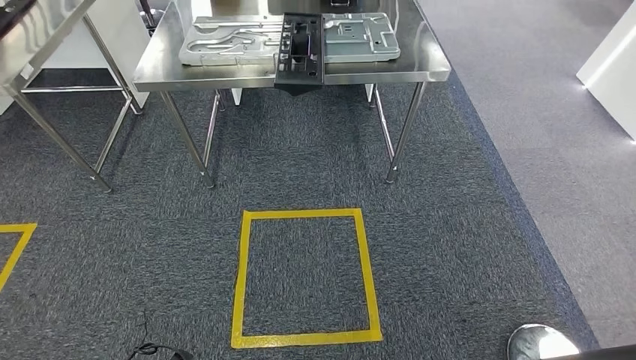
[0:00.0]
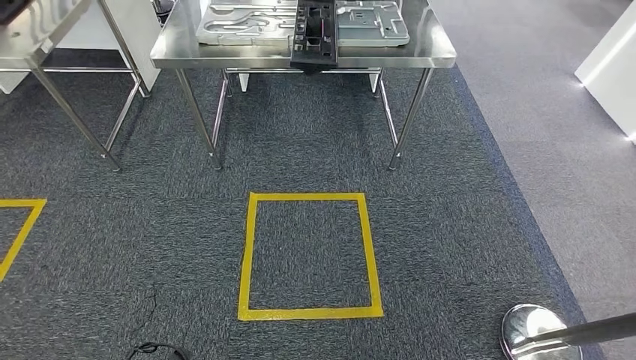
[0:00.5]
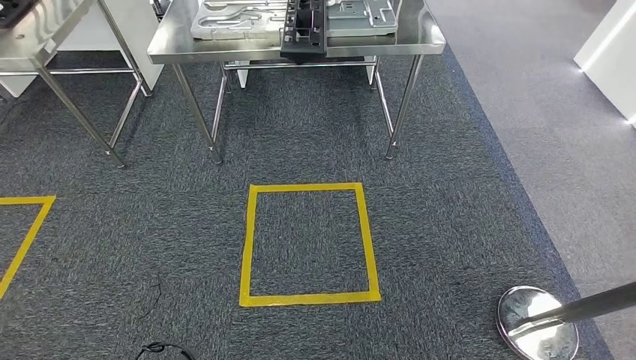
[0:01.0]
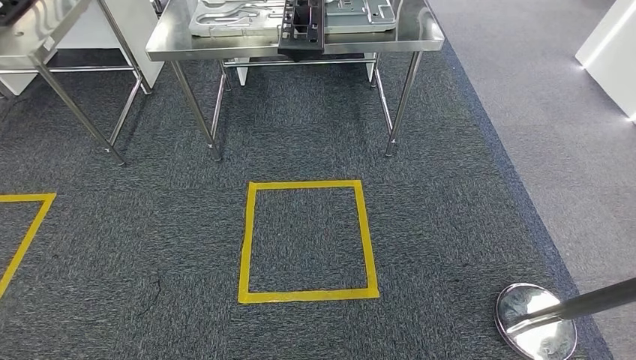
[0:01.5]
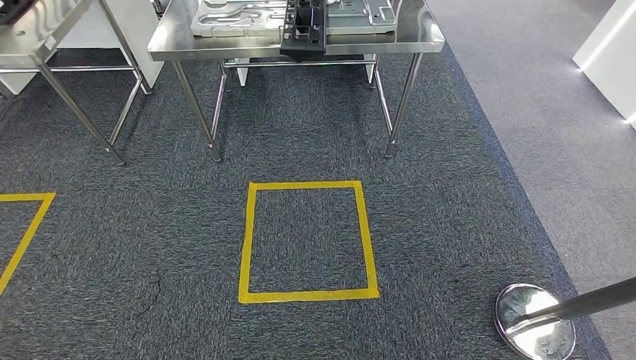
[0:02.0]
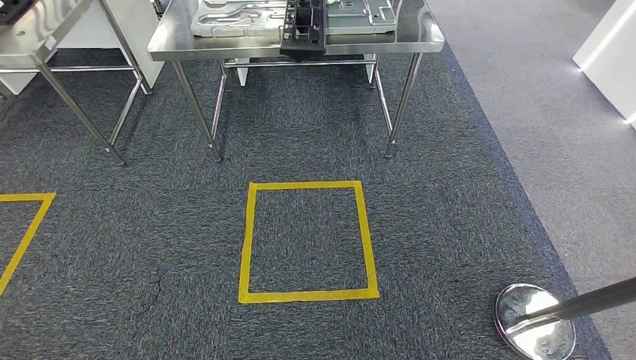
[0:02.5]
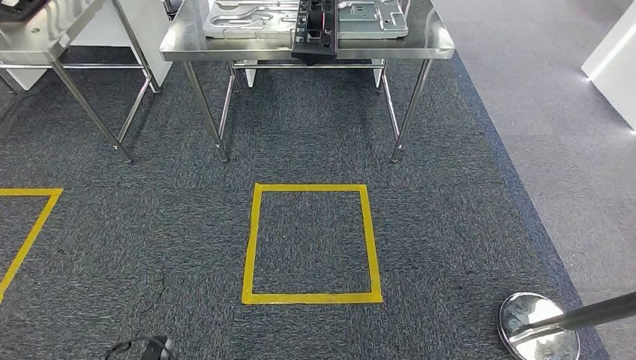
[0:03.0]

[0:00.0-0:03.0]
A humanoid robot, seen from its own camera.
Step, 0:00.0 to 0:03.0: Return to the initial position at the shelf.
0:01.5 to 0:03.0: The left hand reaches roughly 10 cm backward, then returns; the right hand goes roughly 15 cm backward.

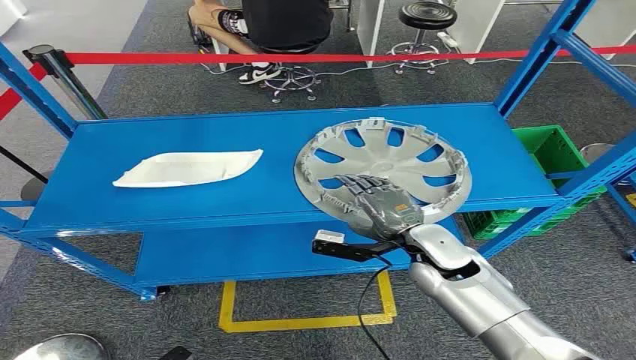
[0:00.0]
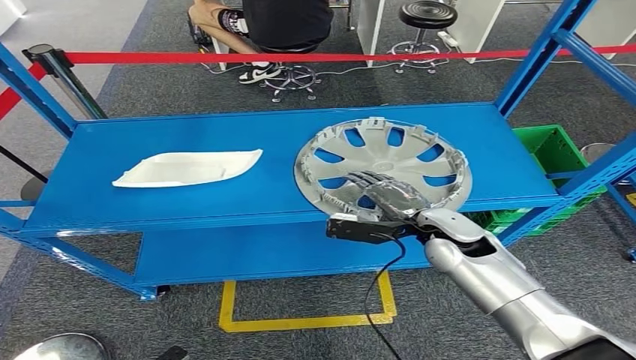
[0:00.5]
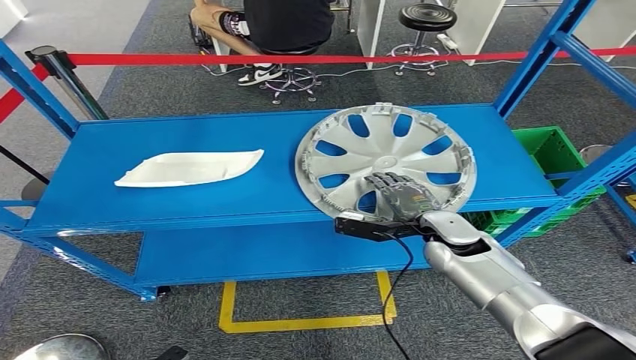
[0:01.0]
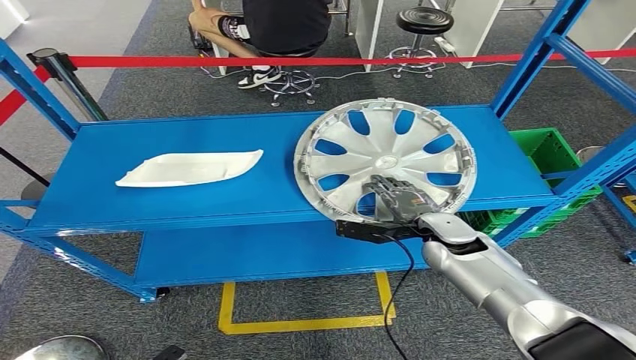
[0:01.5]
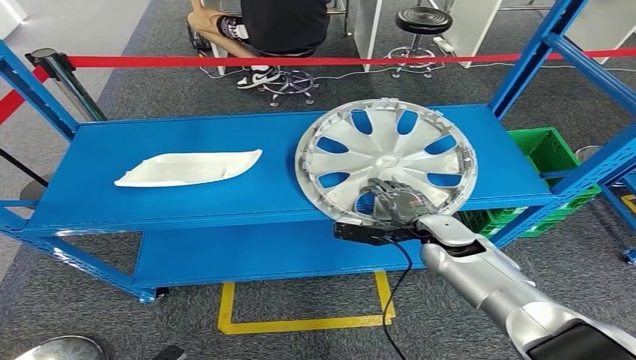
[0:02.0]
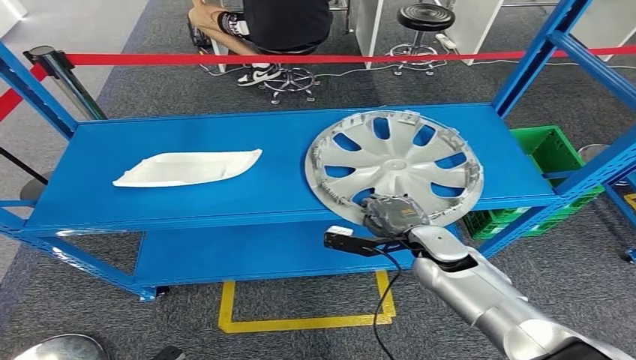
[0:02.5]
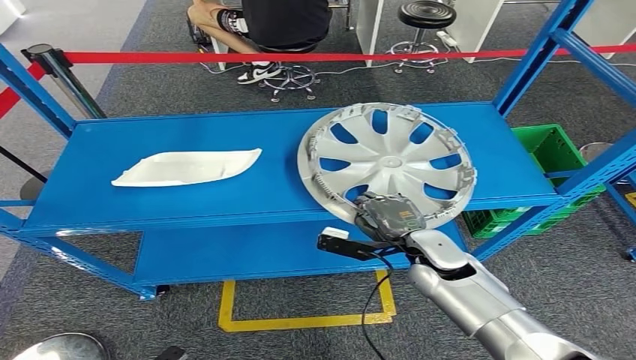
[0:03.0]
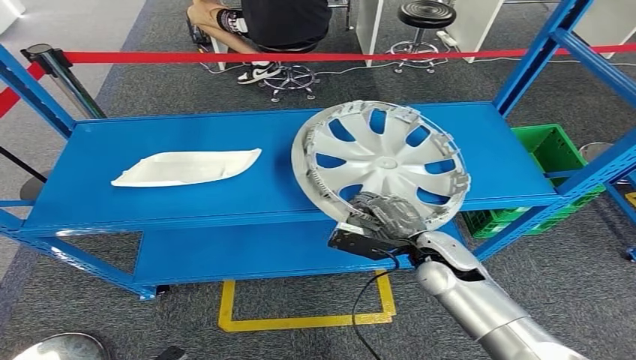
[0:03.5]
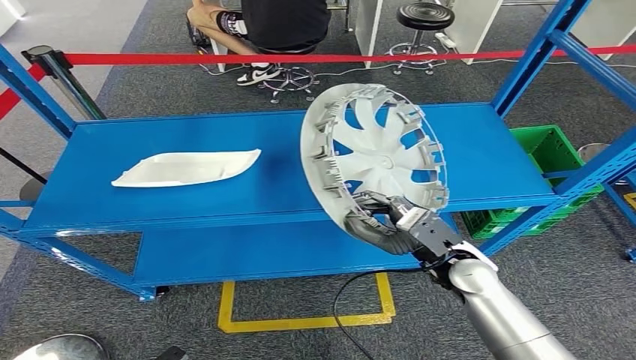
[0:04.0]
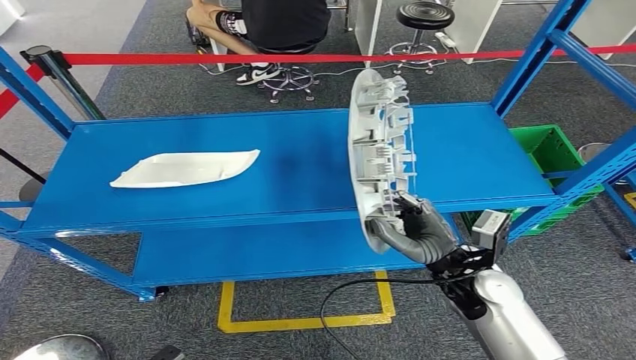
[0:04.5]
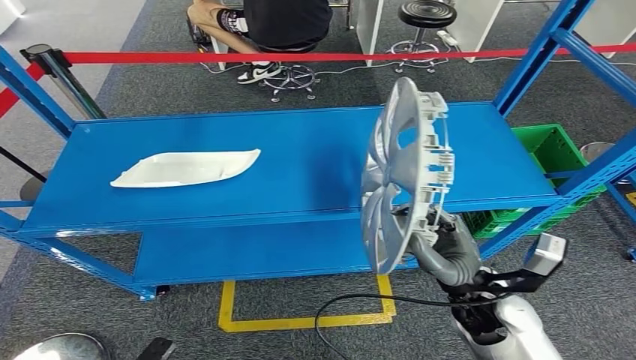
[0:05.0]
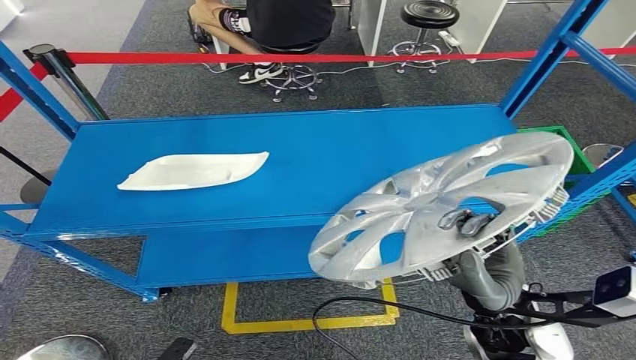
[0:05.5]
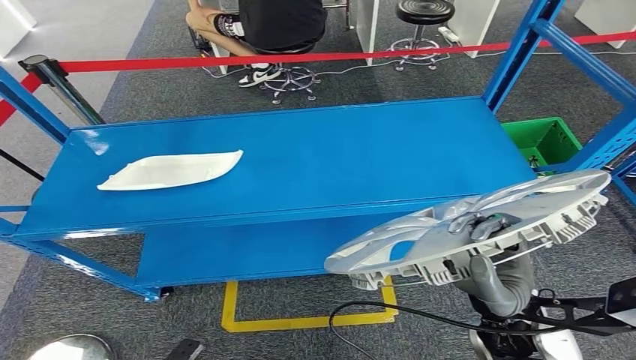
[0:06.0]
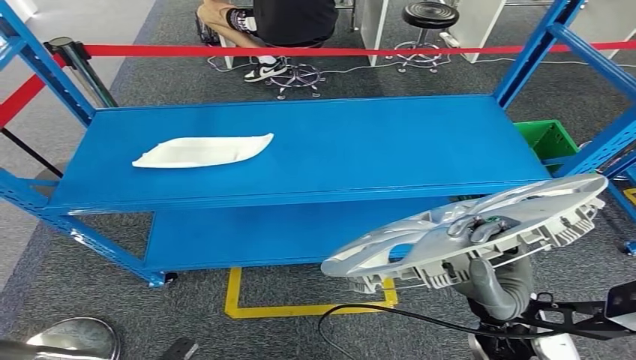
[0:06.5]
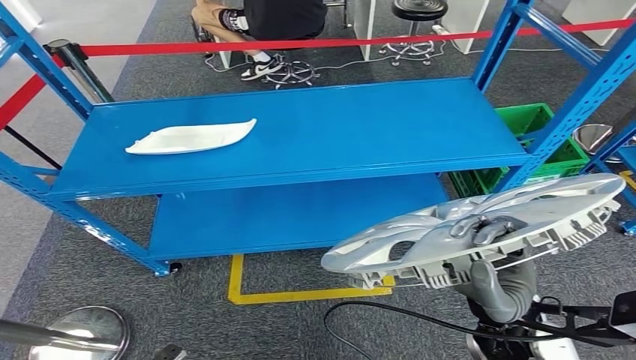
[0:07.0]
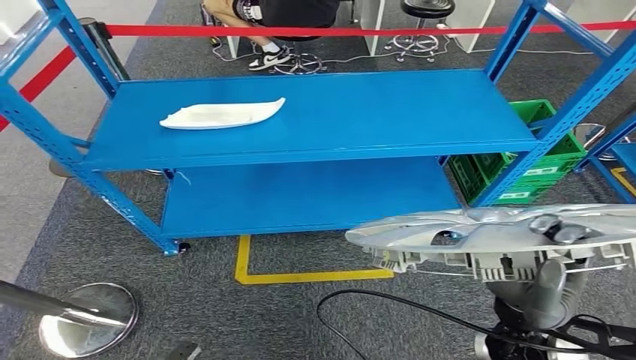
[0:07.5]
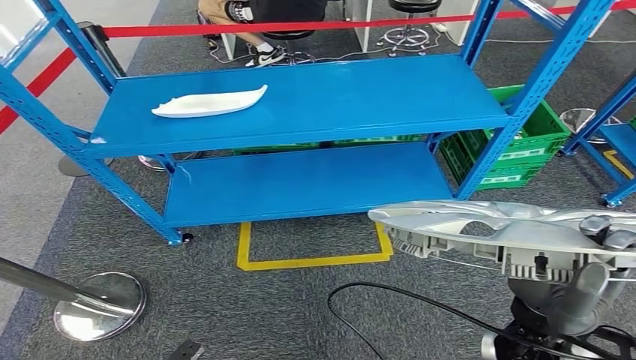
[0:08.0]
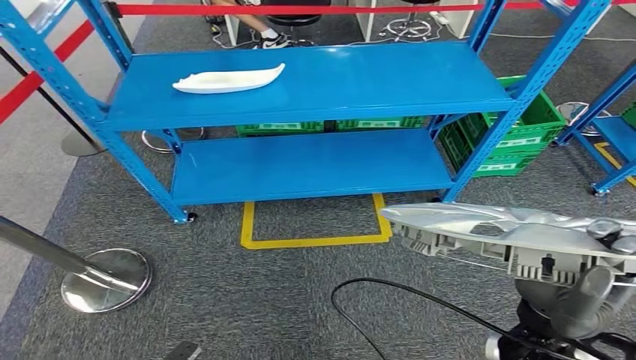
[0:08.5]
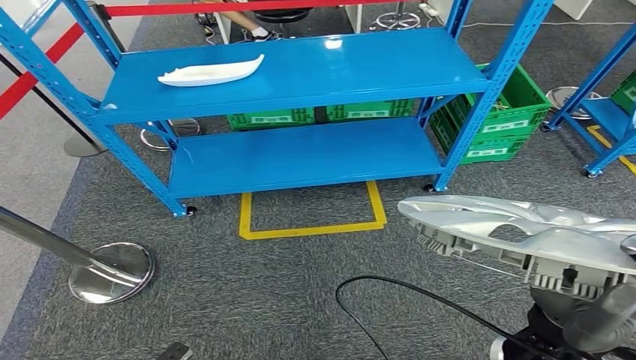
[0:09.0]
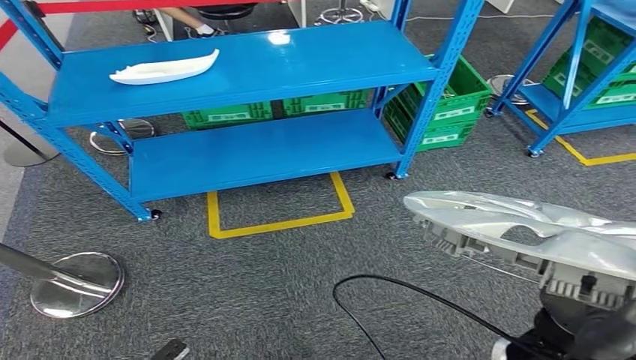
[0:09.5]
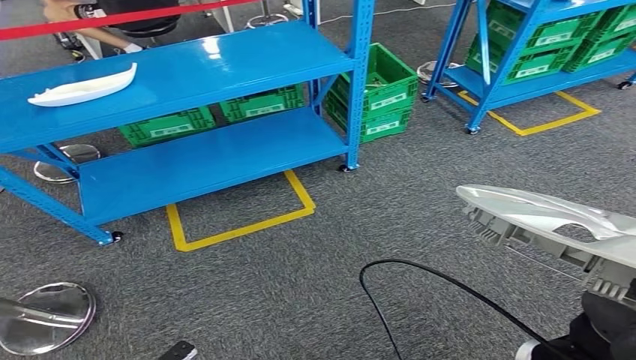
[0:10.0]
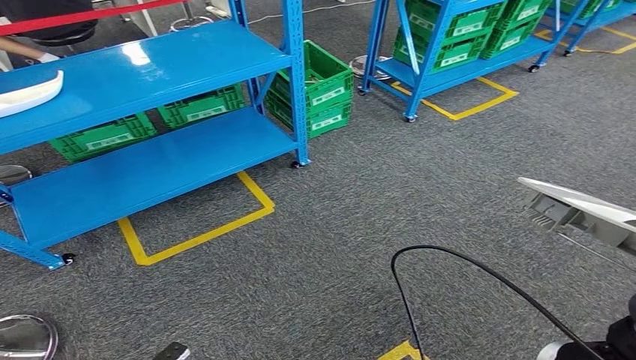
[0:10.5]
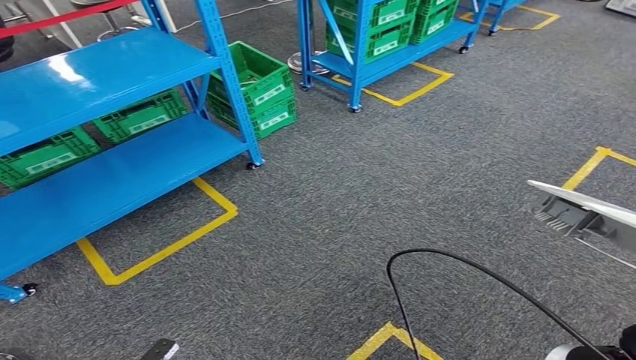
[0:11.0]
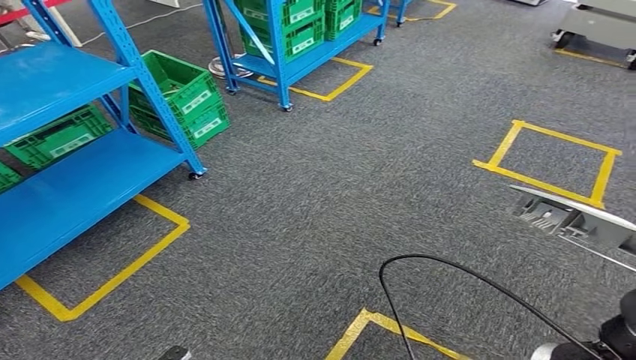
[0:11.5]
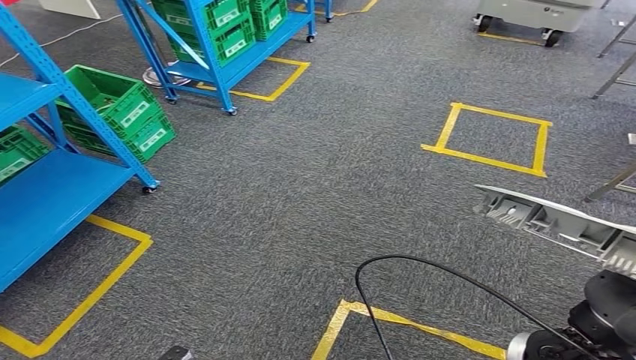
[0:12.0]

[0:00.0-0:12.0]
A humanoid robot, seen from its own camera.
Step, 0:00.0 to 0:07.5: Pick up the small parts from the shelf.

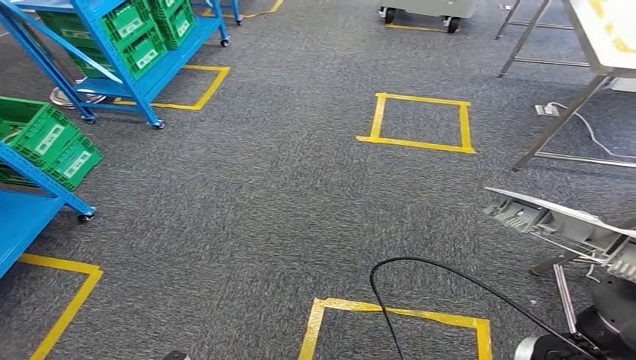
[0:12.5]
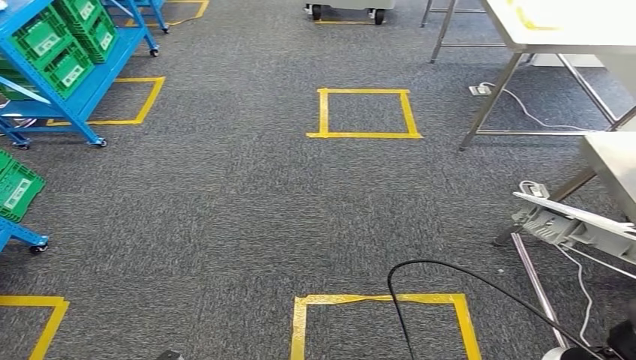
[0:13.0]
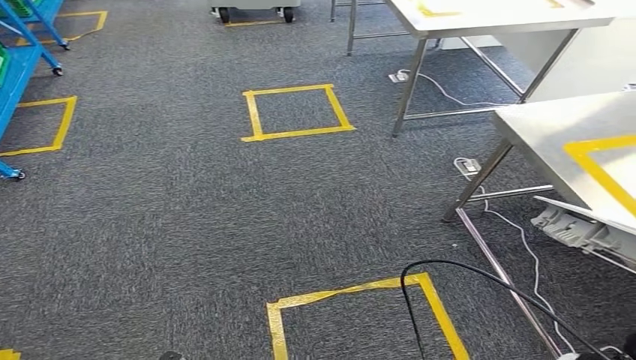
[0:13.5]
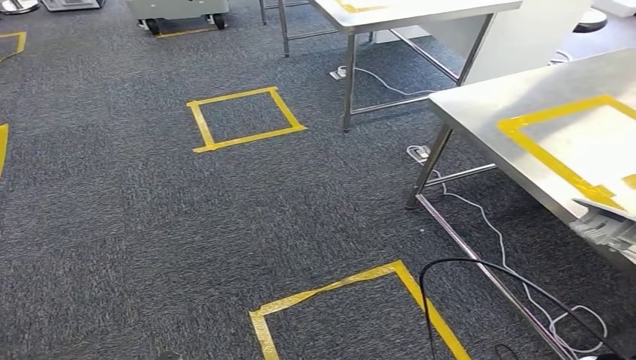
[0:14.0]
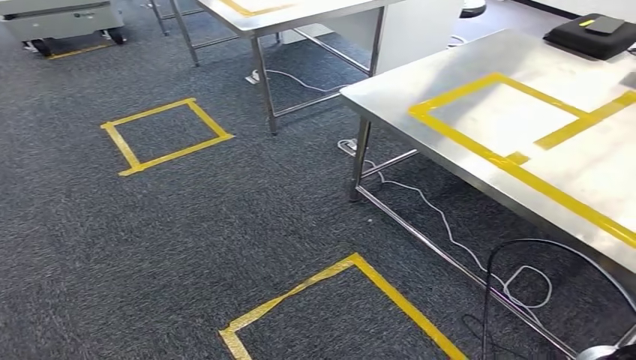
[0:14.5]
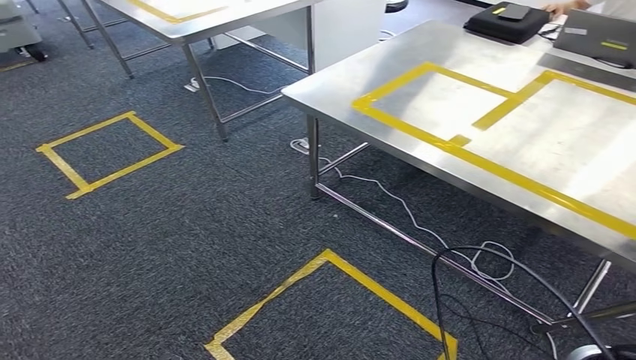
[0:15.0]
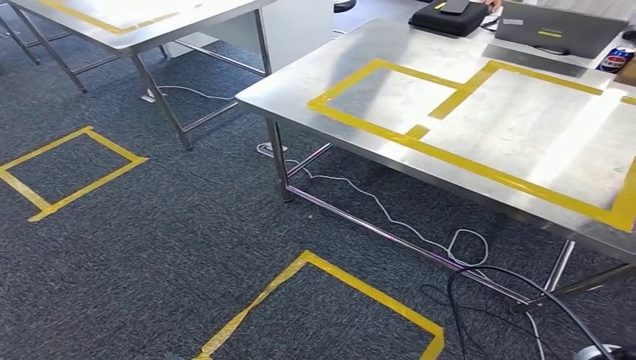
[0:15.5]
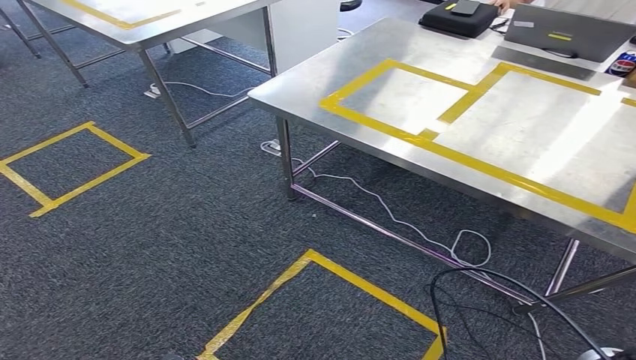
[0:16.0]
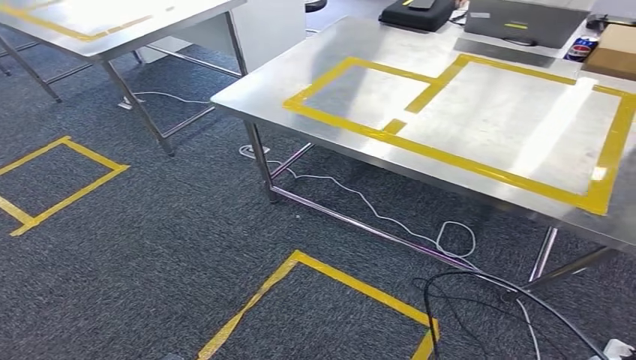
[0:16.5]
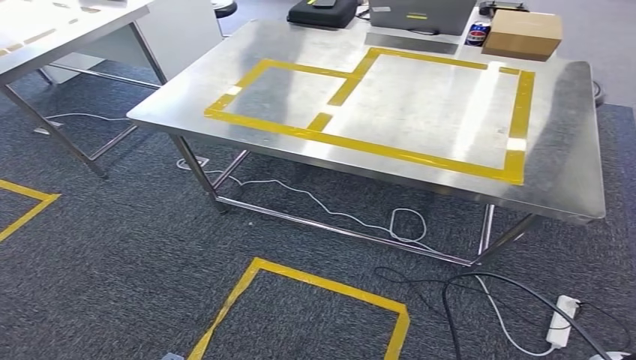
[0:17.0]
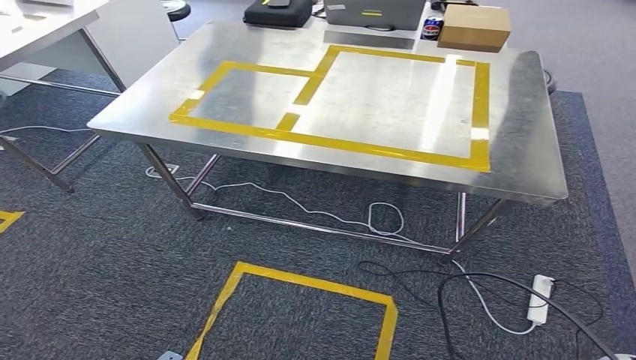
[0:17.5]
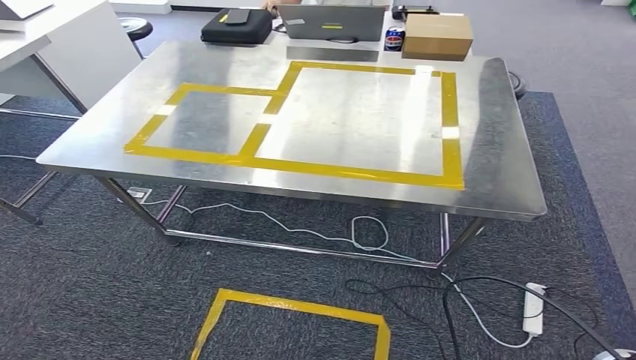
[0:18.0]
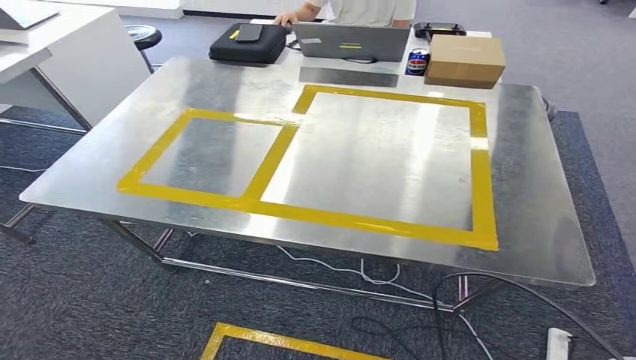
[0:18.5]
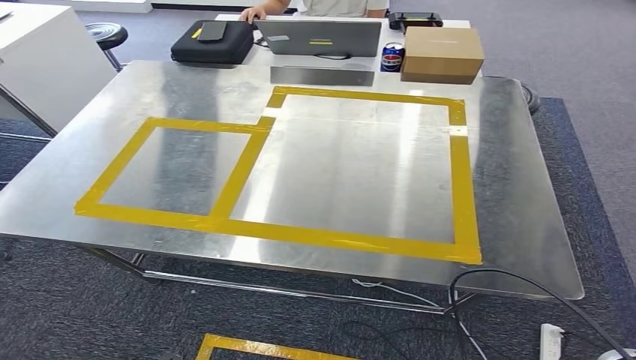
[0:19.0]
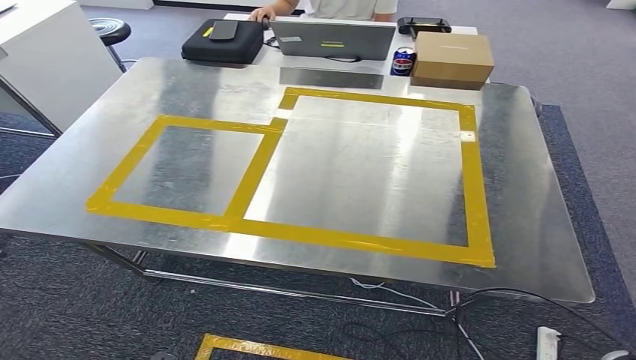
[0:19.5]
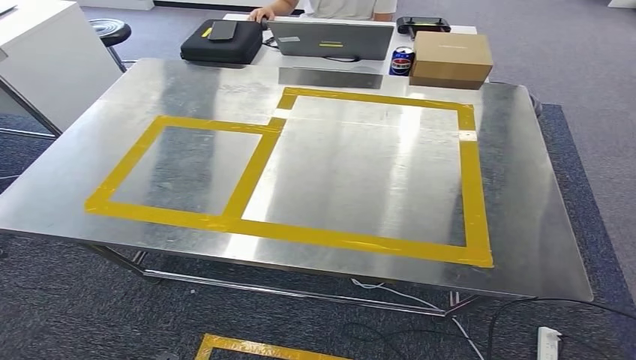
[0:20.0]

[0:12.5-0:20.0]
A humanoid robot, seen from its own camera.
Step, 0:12.5 to 0:19.5: Move the small parts to the workbench.
